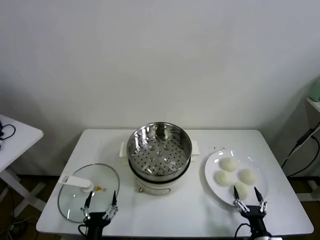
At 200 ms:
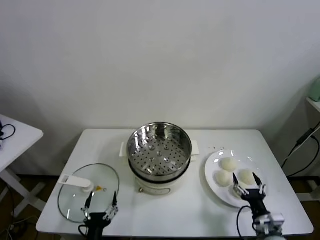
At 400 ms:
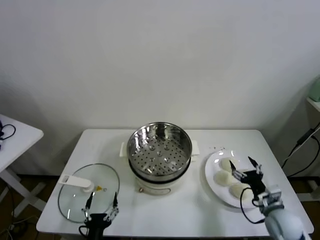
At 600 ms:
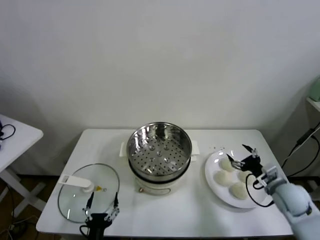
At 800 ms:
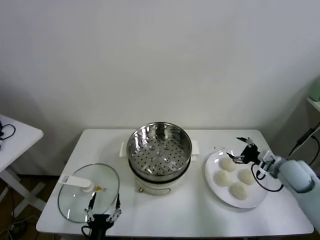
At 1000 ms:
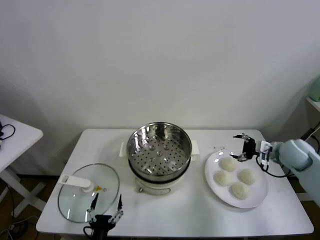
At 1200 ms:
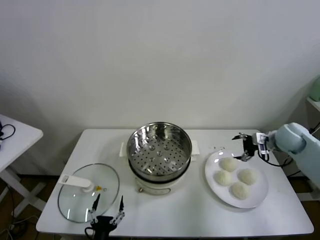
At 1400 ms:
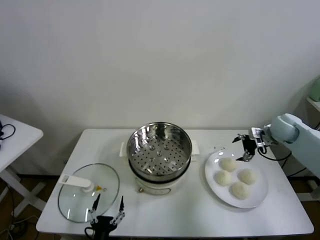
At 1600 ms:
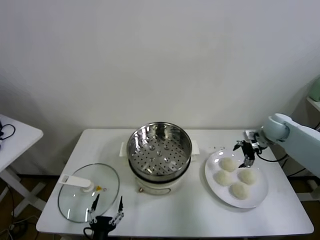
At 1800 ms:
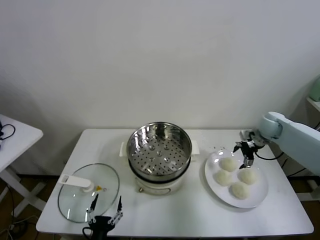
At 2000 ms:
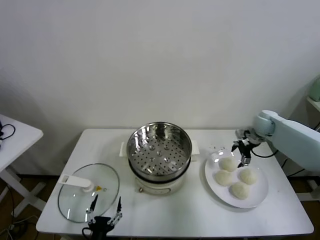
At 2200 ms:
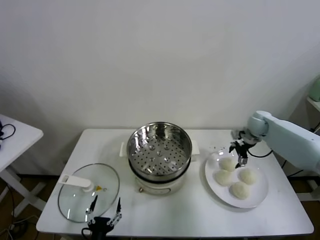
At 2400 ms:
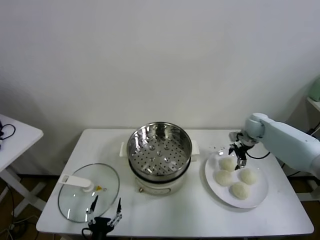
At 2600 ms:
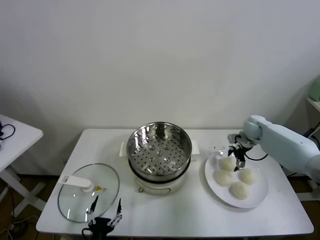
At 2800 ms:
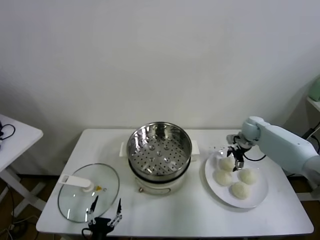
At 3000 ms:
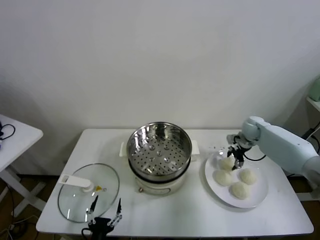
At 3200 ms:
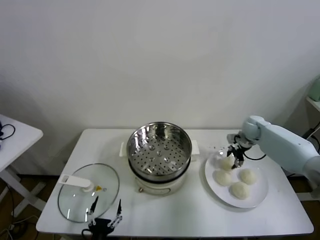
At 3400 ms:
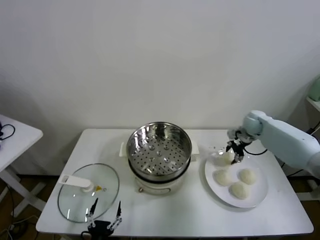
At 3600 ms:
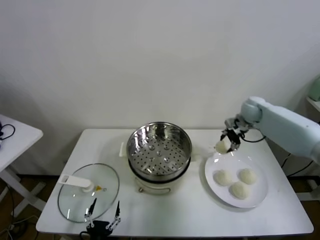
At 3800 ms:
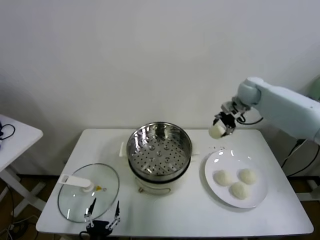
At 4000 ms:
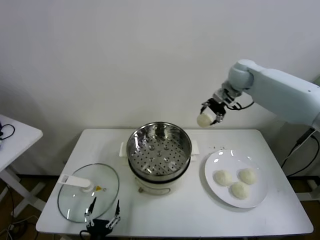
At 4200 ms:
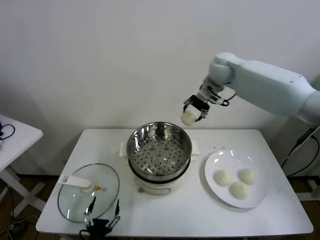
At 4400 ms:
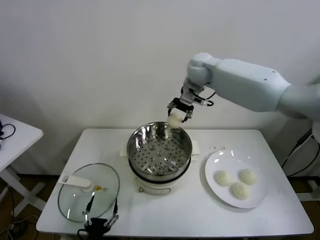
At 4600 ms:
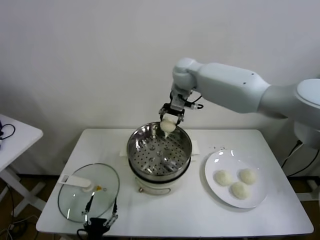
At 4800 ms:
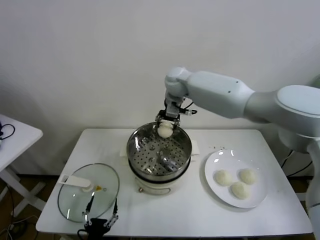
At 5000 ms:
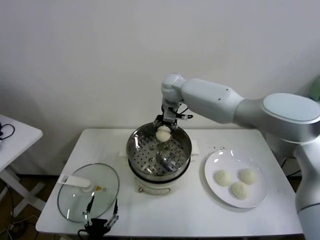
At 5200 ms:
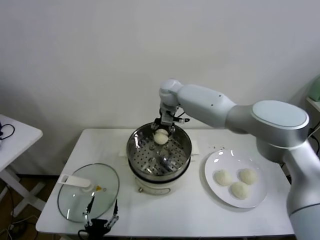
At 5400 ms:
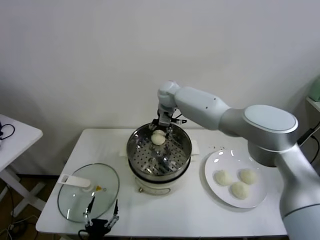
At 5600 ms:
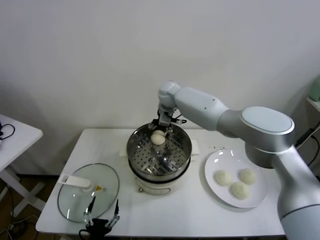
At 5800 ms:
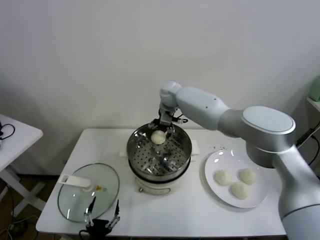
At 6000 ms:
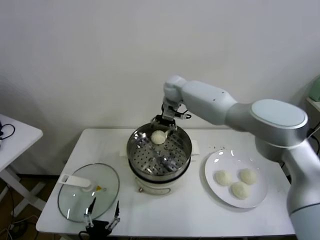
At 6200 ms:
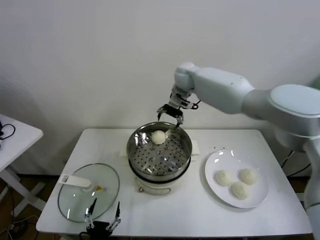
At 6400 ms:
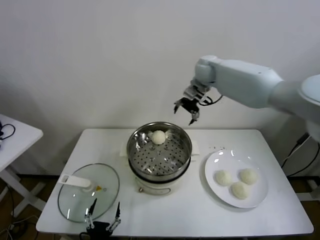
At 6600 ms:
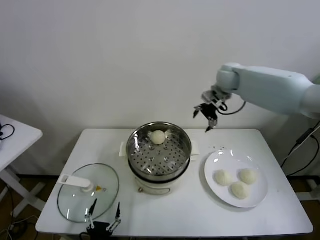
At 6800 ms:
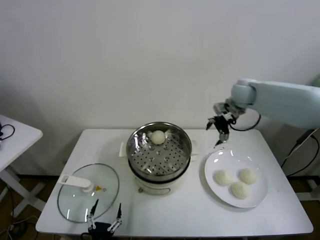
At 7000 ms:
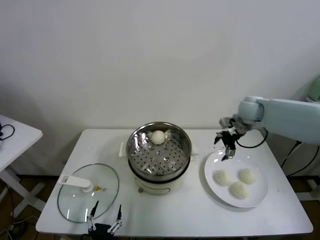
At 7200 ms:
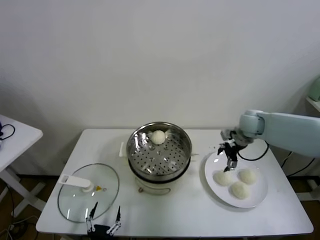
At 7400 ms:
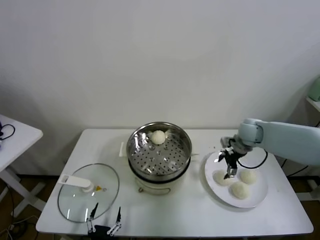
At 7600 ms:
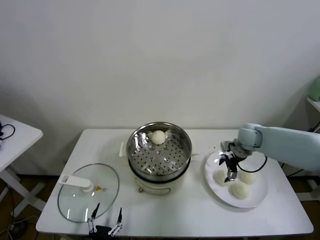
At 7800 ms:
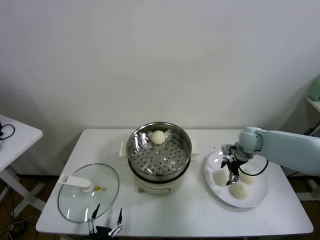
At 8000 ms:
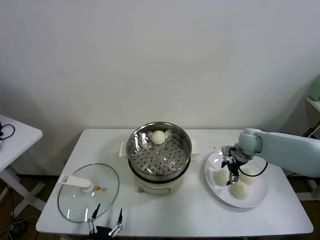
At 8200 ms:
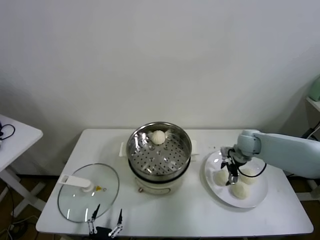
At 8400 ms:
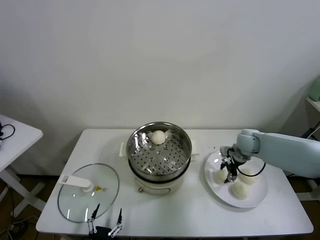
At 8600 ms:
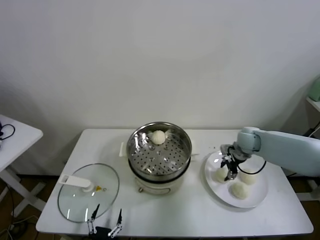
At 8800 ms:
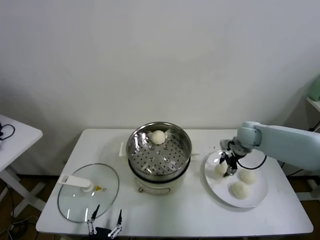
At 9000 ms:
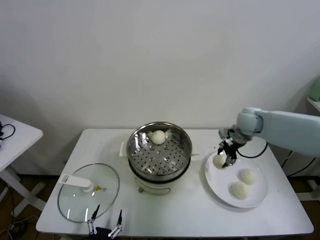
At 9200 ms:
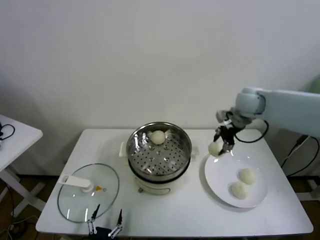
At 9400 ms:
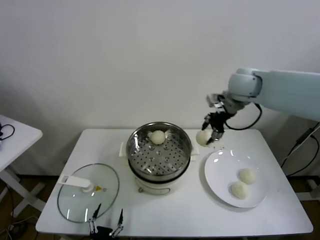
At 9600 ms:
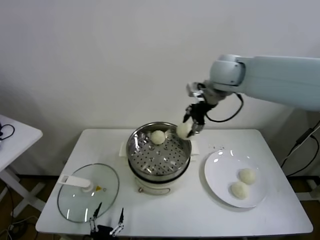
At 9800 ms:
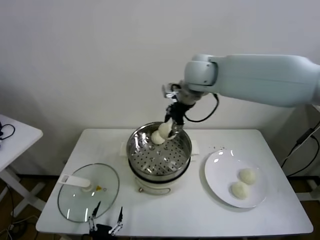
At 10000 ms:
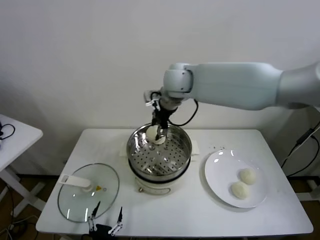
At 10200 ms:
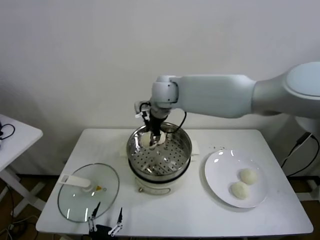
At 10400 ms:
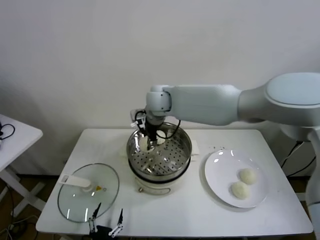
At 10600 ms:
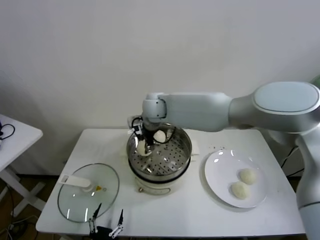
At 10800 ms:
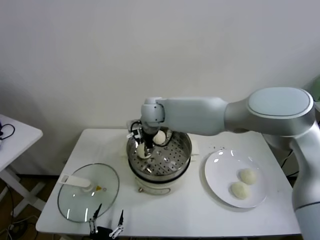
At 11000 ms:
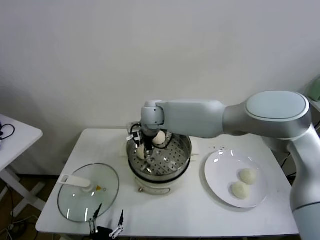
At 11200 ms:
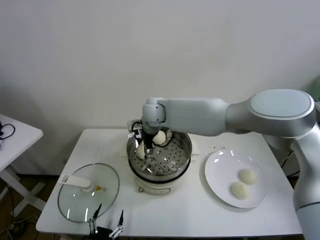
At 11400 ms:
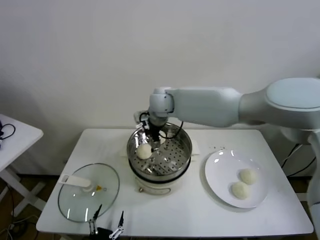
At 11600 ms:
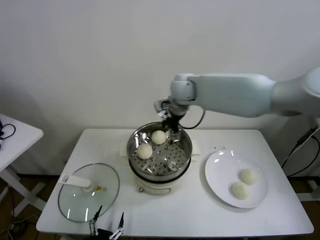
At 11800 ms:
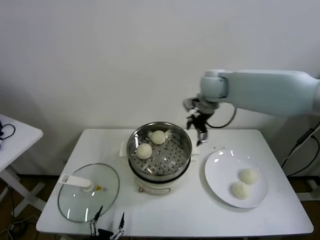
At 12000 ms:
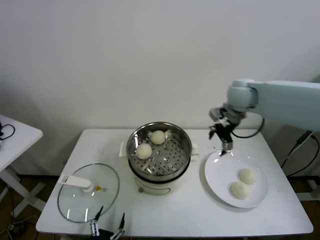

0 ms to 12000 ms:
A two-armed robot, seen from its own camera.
Task of the whole recording: take steamed baozi put them in steamer.
Step, 0 ms to 3000 ms: Grasp the baozi in the plate with right gripper.
Step, 3200 ms to 6000 ms: Place the baozi on the steamer with right gripper.
Step, 6200 ms to 8200 ms: Grasp the baozi in the plate with right gripper.
Step, 8400 ms to 11200 ms: Place the baozi on the steamer with right gripper.
1600 ms to 3000 ms: The right gripper travels downward by about 5 cm, and closes up.
3000 ms to 4400 ms: The right gripper is displaced to the left and upward by roughly 35 cm.
4400 ms to 6000 ms: The right gripper moves downward, some 5 cm, and opens.
6000 ms to 7600 ms: The right gripper is displaced to the right, downward and backward by roughly 35 cm.
7600 ms to 9000 ms: The right gripper goes about 10 cm upward, and closes its fingers.
9000 ms to 10400 ms: The right gripper travels to the left by some 30 cm.
10400 ms to 12000 ms: The right gripper is displaced to the right by about 30 cm, and opens its fingers.

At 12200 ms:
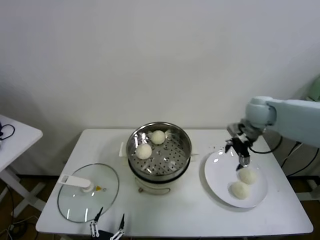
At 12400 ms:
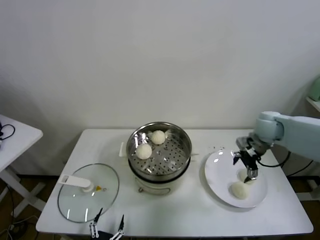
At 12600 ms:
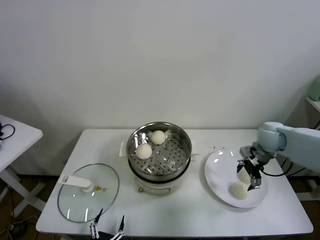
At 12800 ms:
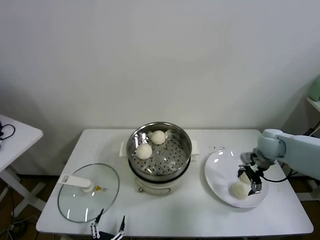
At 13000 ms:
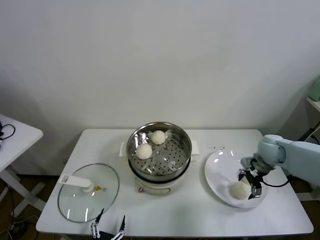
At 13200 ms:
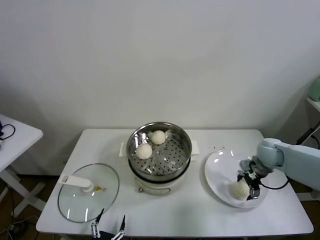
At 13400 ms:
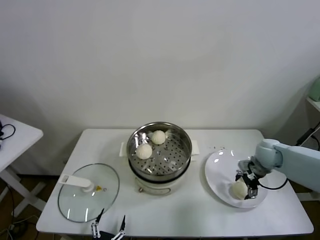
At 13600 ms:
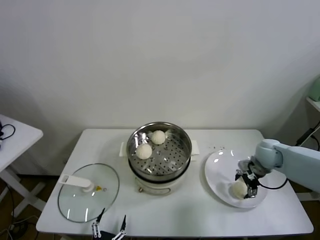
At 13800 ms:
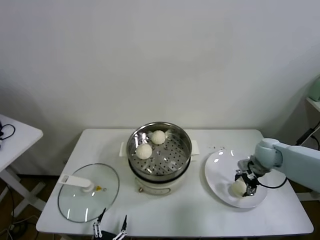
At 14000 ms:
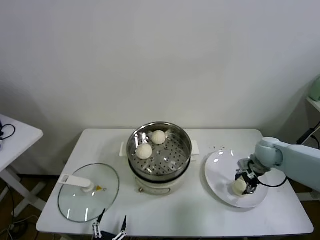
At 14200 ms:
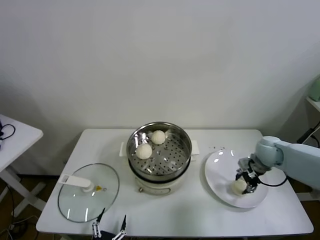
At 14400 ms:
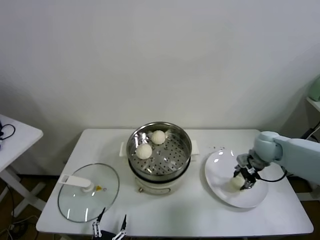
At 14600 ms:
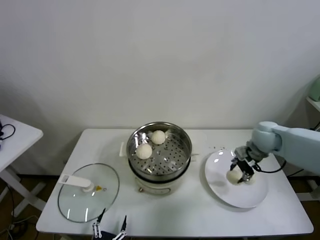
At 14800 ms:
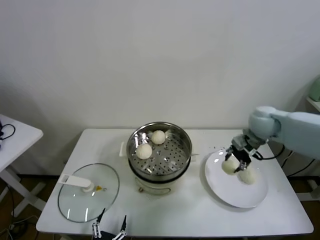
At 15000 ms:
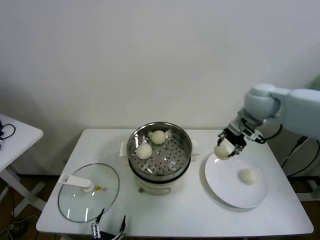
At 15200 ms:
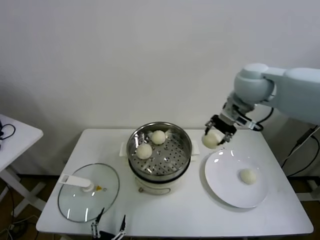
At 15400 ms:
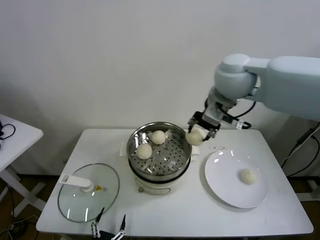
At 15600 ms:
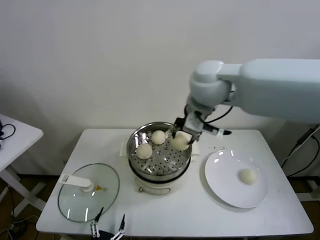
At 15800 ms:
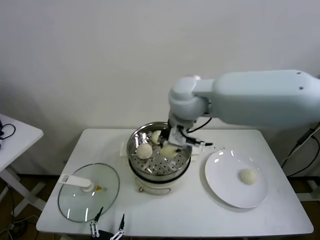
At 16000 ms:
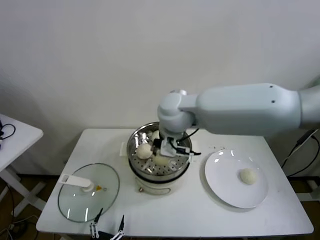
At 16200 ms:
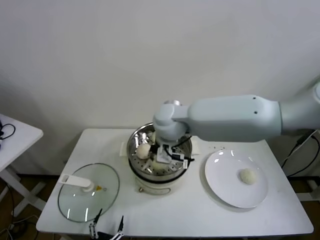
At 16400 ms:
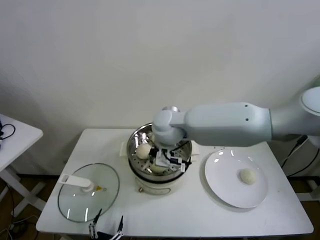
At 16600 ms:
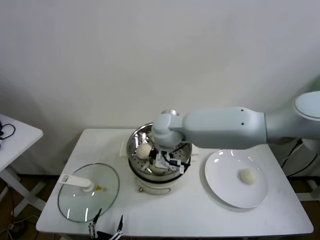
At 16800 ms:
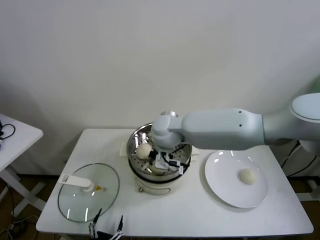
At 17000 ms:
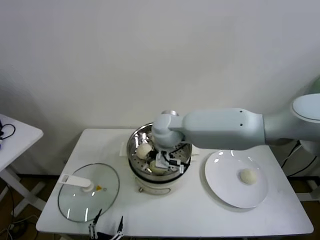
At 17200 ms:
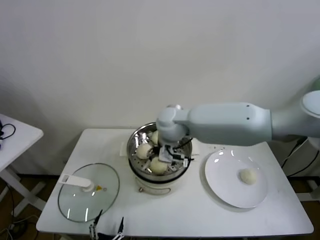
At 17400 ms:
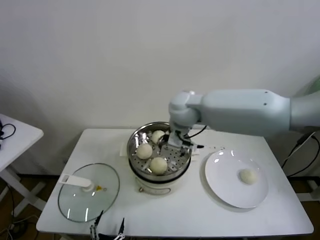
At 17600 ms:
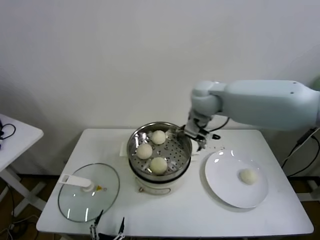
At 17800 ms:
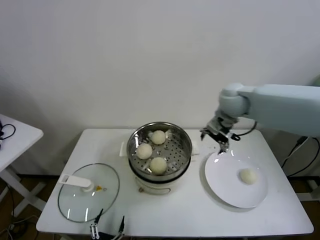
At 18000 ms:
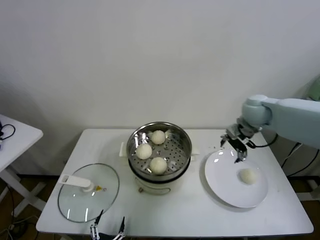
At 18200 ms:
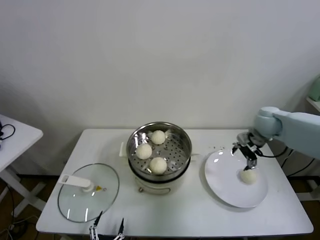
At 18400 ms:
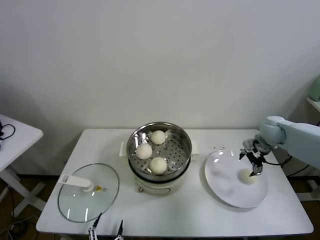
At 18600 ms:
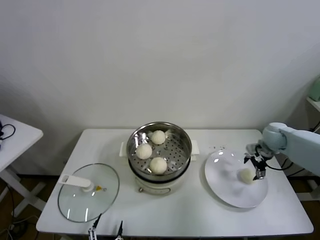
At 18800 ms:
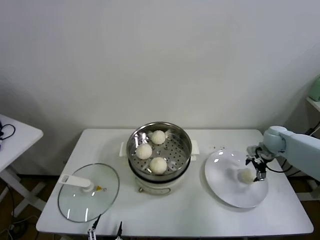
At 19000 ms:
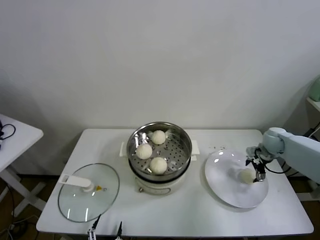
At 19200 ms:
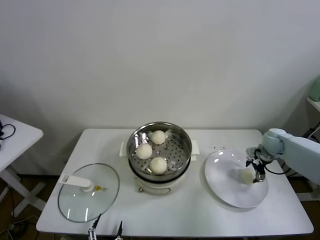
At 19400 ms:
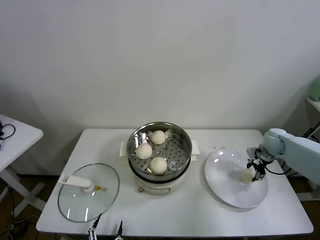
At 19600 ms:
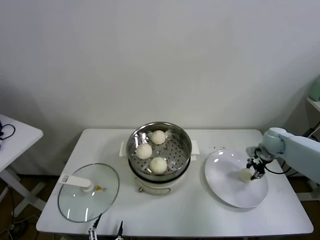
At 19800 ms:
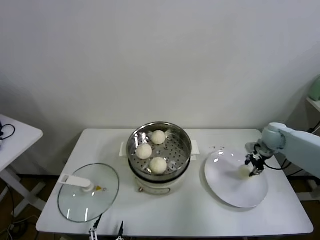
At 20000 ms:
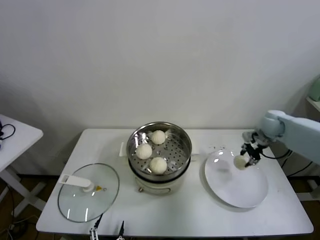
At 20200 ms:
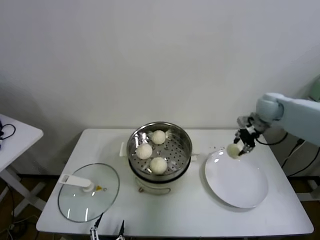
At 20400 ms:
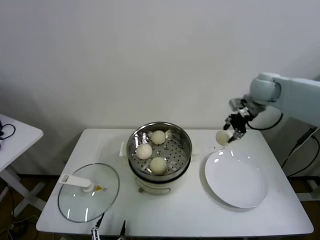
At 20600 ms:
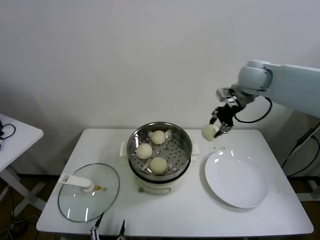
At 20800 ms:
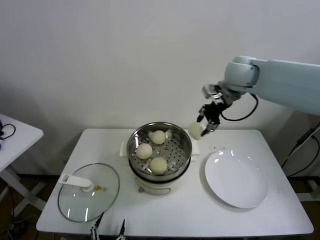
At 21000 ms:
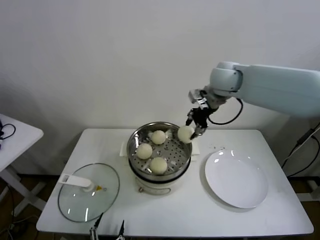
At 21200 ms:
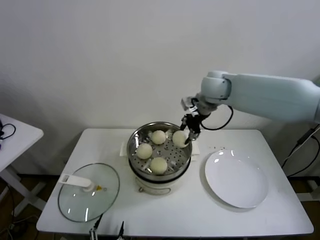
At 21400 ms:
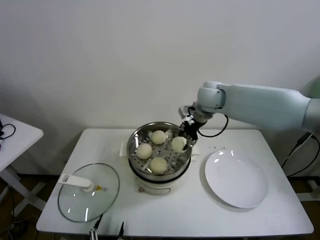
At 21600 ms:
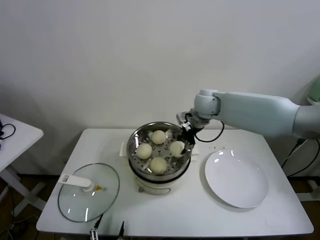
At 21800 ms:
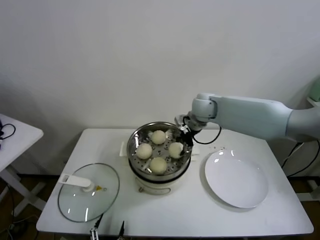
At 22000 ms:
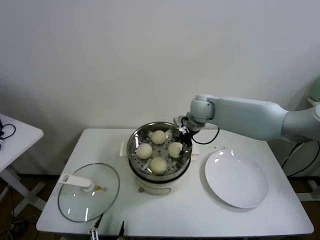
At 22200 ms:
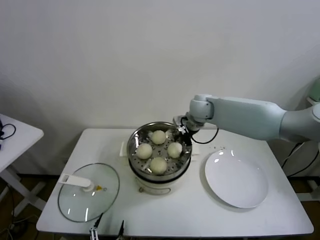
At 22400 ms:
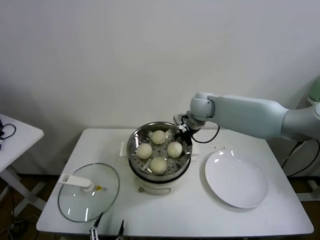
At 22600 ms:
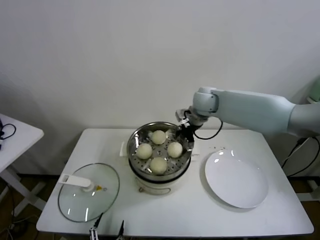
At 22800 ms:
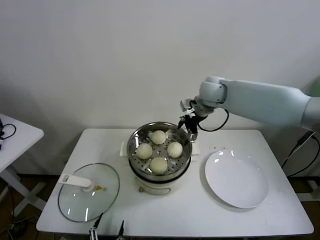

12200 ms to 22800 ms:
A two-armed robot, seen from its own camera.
Task of the whole recording: take steamed baozi put them in steamer.
Step, 12200 ms to 13800 ms: Grasp the baozi in the plate with right gripper.
Step, 14000 ms to 17000 ms: Place the baozi on the steamer with right gripper.
Step, 17200 ms to 19200 ms: Grasp the baozi in the plate with right gripper.
Step, 19600 ms to 22400 ms: Place the baozi on the steamer with right gripper.
12200 ms to 13800 ms: The right gripper travels downward by some 15 cm.
13800 ms to 15200 ms: The right gripper travels upward and to the left by roughly 30 cm, and closes.
15200 ms to 16800 ms: The right gripper heads to the left and downward, covering roughly 25 cm.
16800 ms to 18200 ms: The right gripper goes about 35 cm to the right, and opens its fingers.
18200 ms to 19800 ms: The right gripper heads downward and to the right, covering roughly 10 cm, and closes up.
19800 ms to 21200 ms: The right gripper shifts some 35 cm to the left and upward.
21200 ms to 22800 ms: The right gripper opens its fingers.
